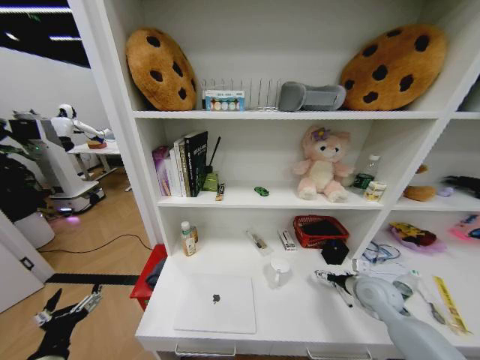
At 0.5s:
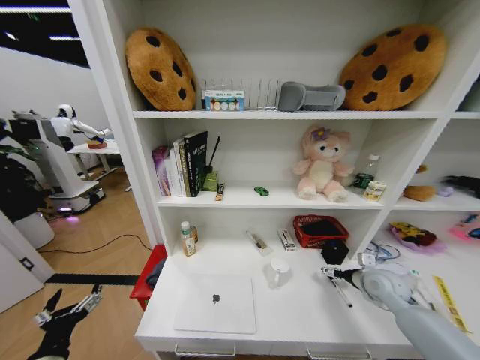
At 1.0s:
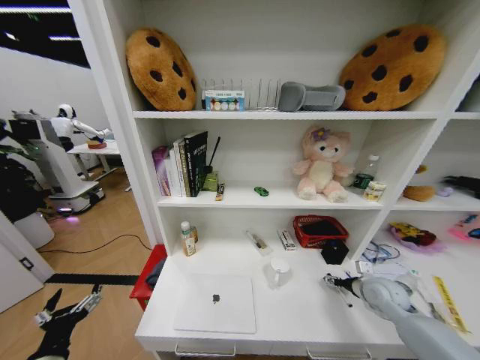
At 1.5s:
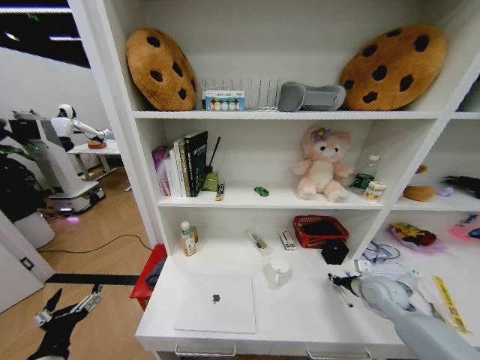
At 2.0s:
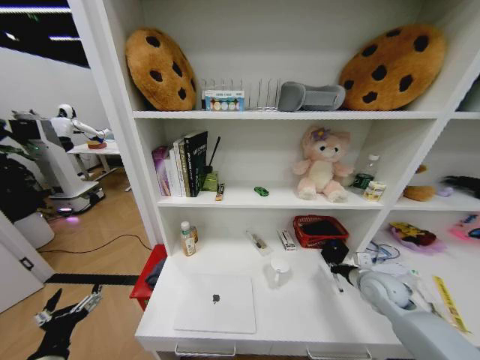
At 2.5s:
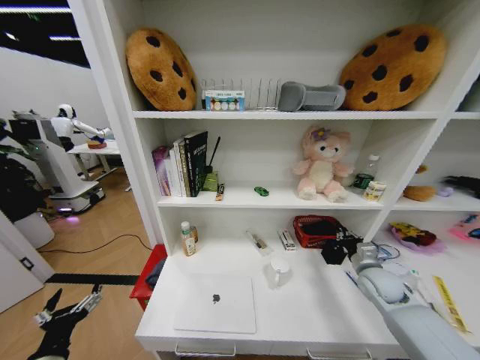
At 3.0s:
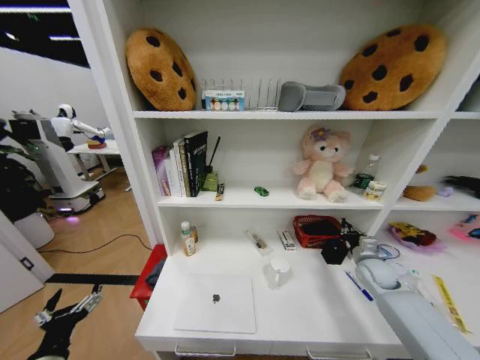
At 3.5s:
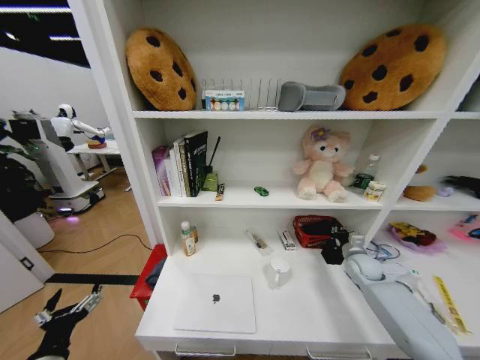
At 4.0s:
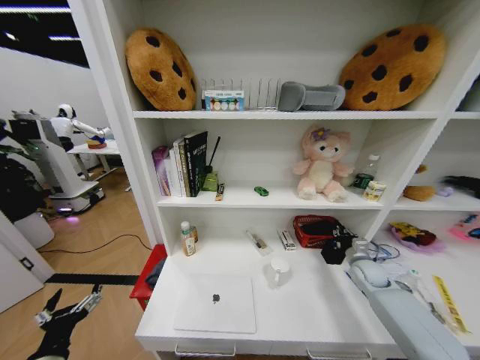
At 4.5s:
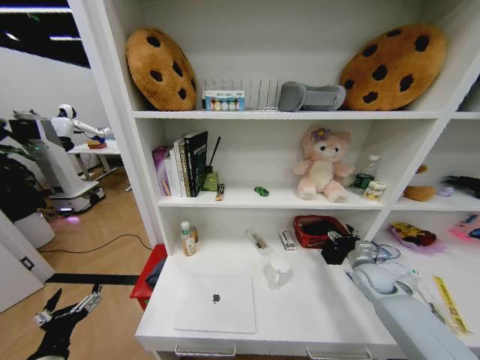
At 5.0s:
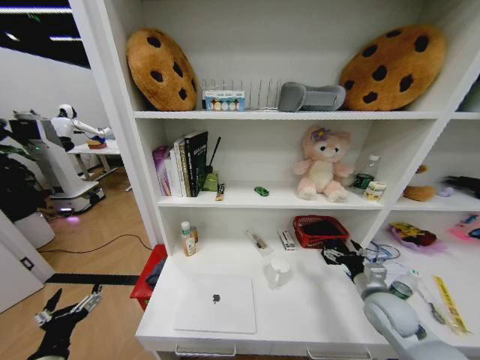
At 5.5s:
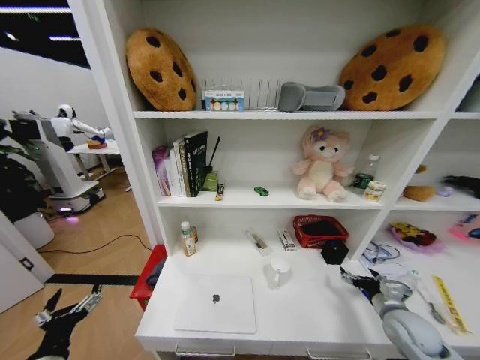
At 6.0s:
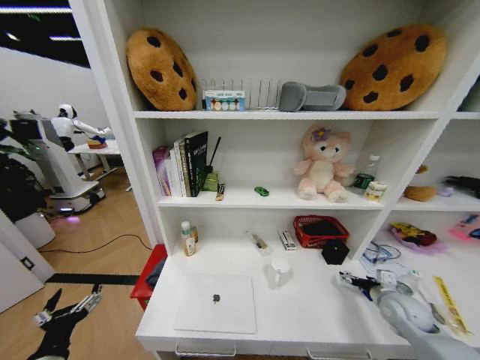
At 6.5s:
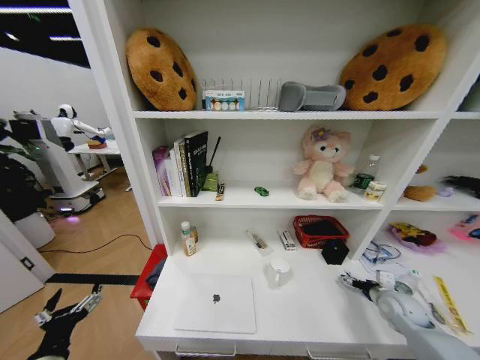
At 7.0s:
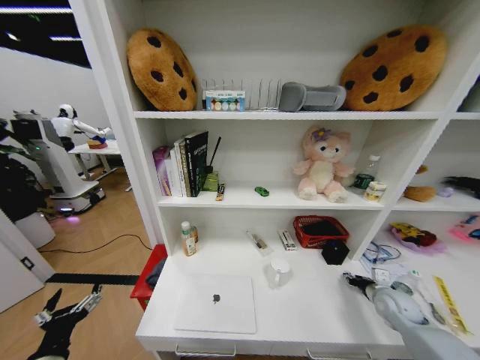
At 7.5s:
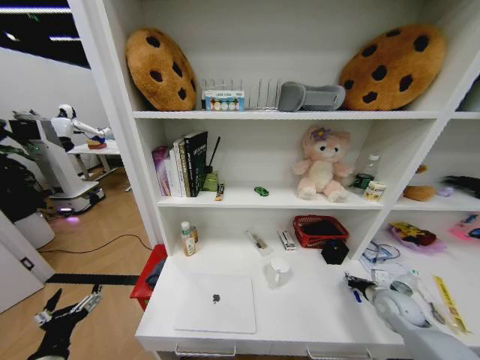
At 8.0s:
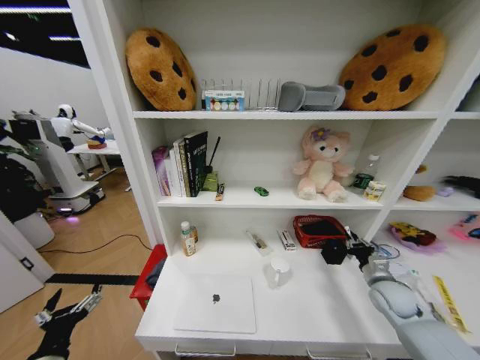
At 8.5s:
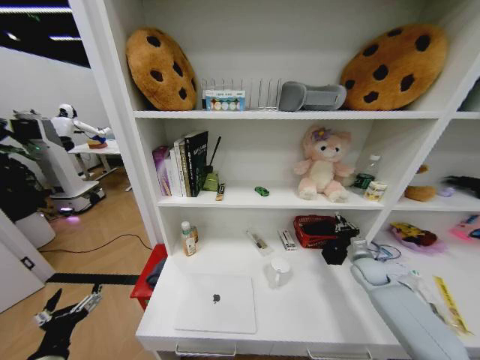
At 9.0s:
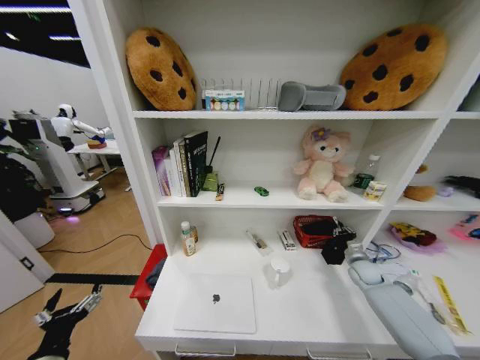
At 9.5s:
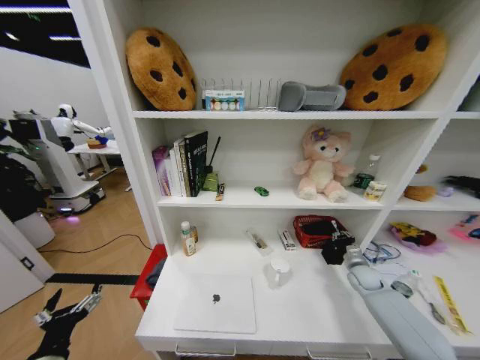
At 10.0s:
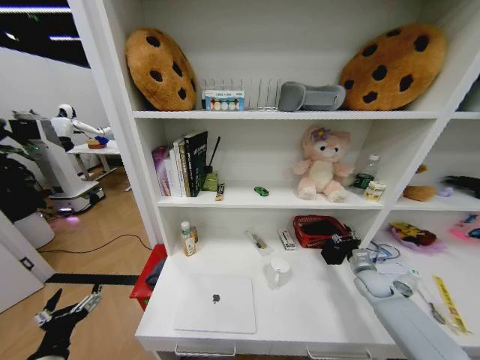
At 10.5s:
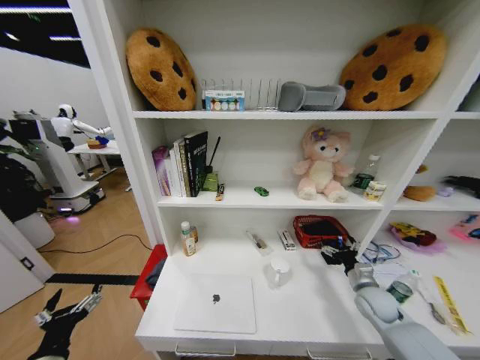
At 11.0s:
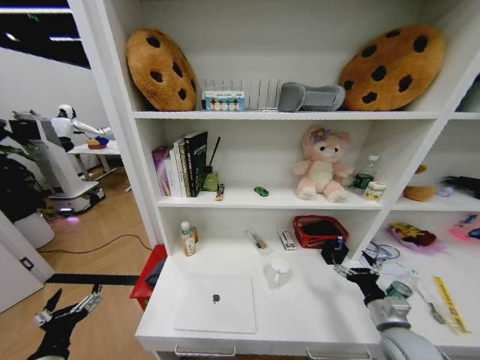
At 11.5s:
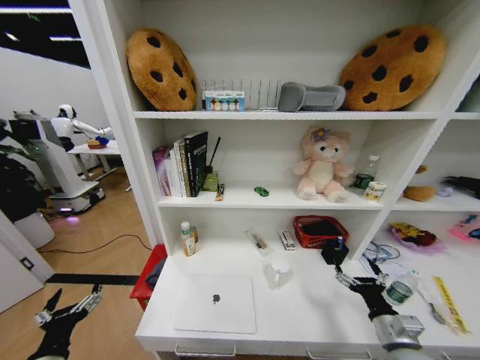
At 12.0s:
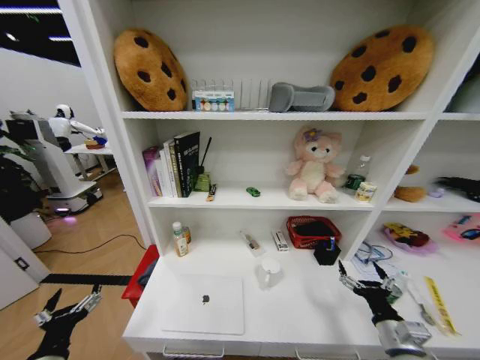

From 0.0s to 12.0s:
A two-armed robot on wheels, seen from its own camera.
Task of the whole recording: Organize the objects on the table.
From 0.0s to 2.0s: The right gripper closes its fingers.
From 2.0s to 4.0s: The right gripper goes some 10 cm forward and downward.
From 4.0s to 6.0s: The right gripper is displaced backward by roughly 10 cm, and opens up.
From 6.0s to 8.0s: The right gripper closes.
From 8.0s to 10.0s: The right gripper moves forward and downward, about 10 cm, and opens up.
From 10.0s to 12.0s: The right gripper shifts approximately 25 cm backward and to the left, and opens its fingers.

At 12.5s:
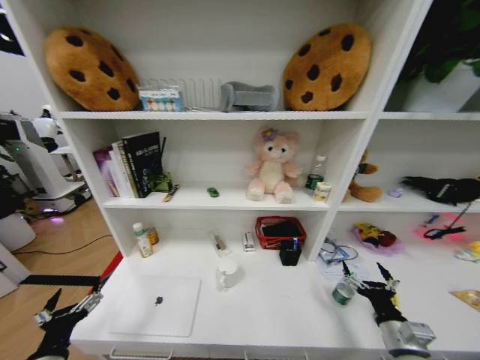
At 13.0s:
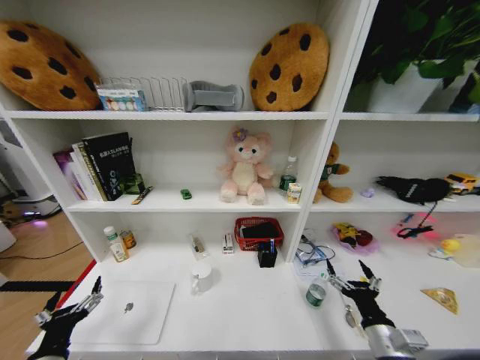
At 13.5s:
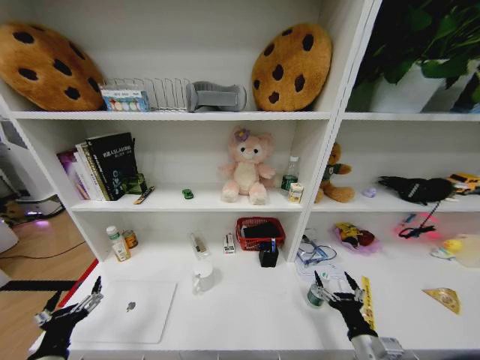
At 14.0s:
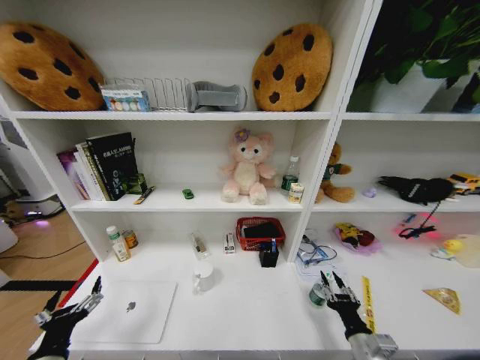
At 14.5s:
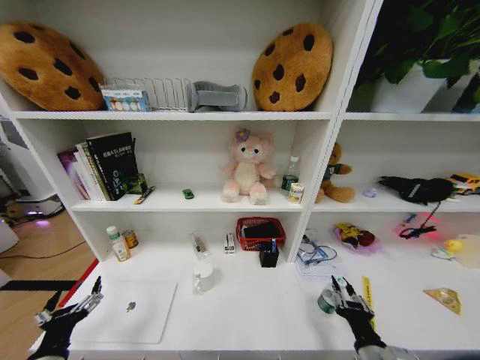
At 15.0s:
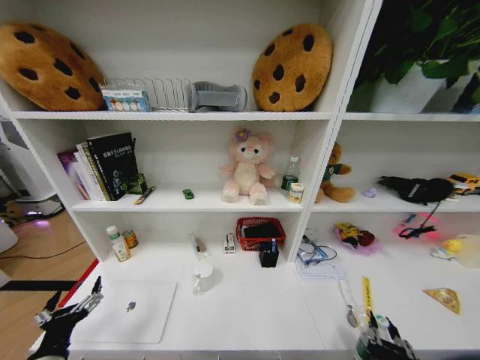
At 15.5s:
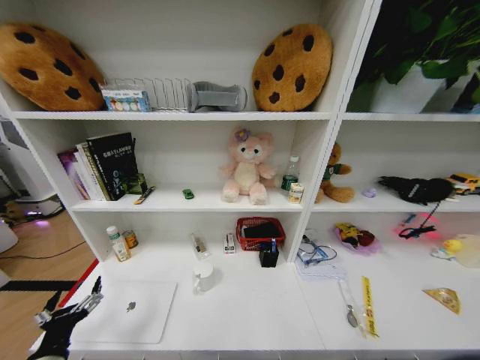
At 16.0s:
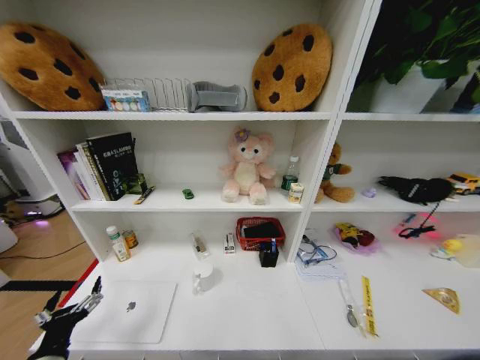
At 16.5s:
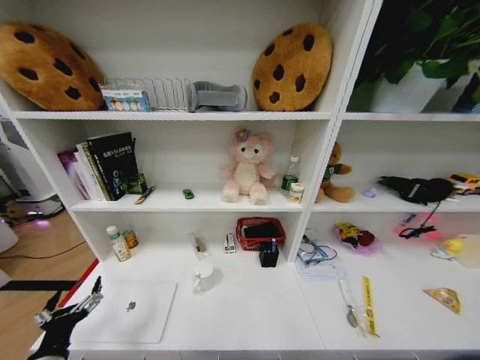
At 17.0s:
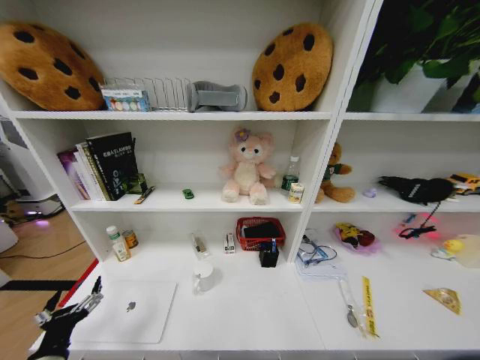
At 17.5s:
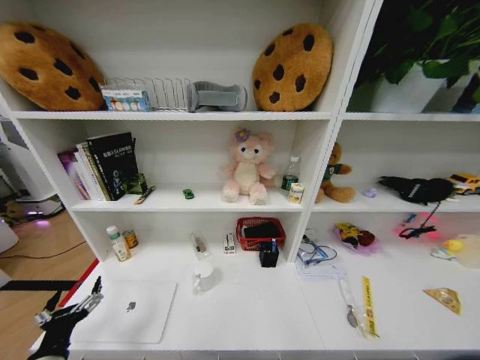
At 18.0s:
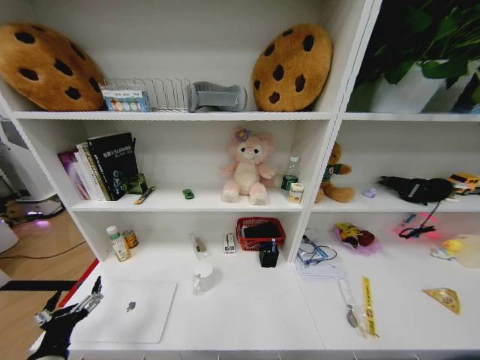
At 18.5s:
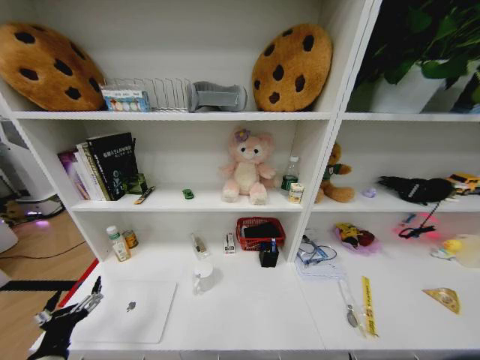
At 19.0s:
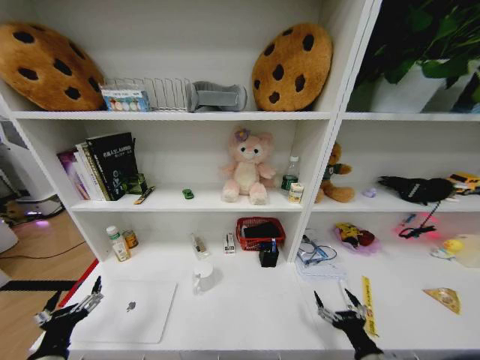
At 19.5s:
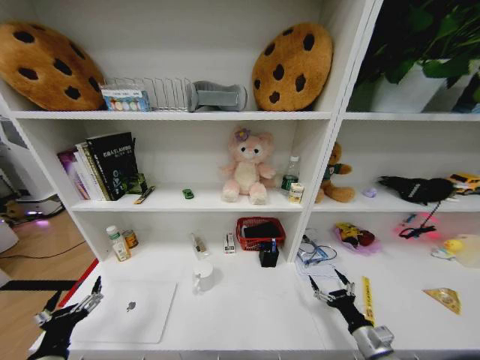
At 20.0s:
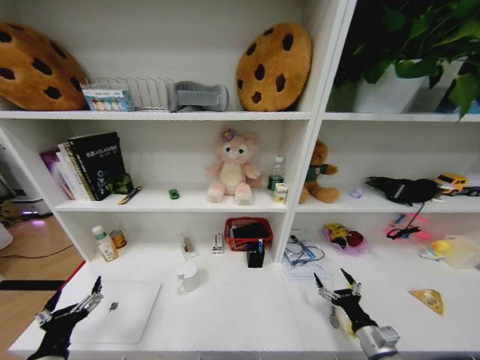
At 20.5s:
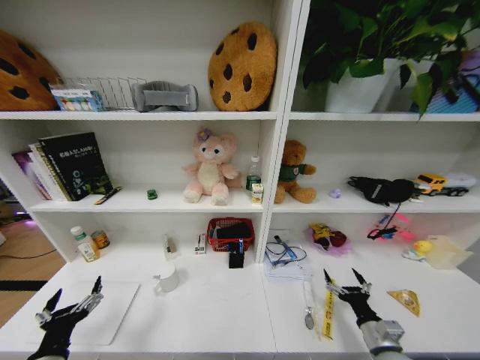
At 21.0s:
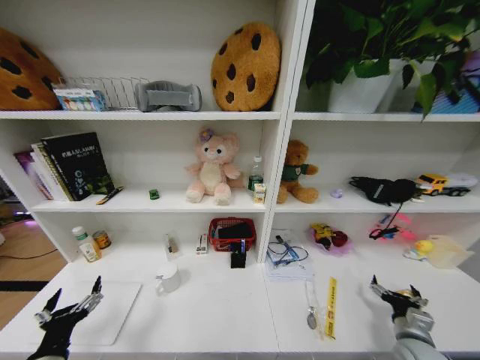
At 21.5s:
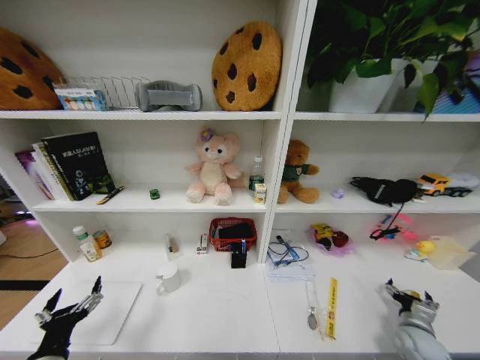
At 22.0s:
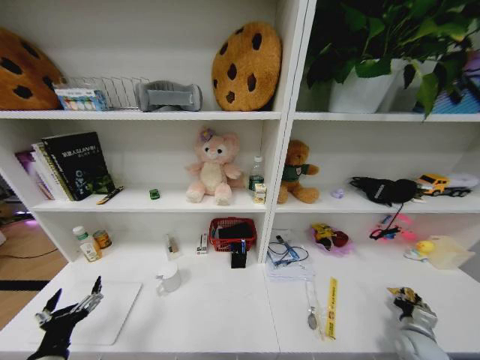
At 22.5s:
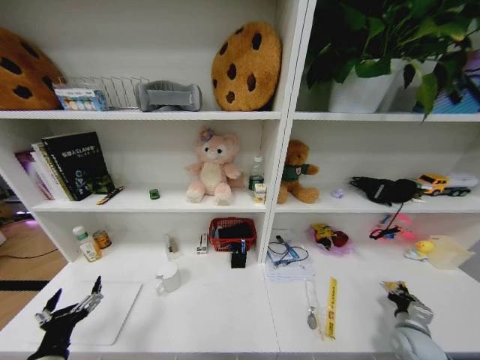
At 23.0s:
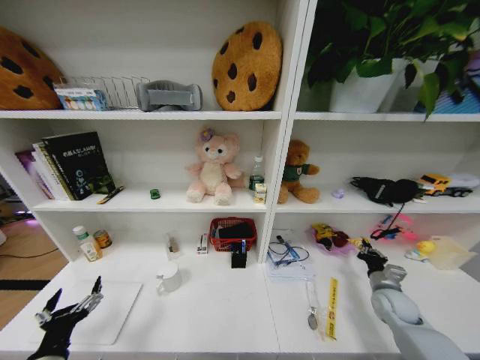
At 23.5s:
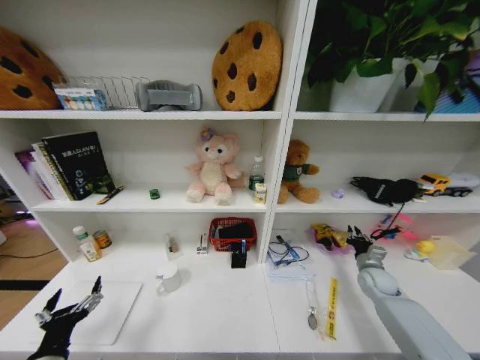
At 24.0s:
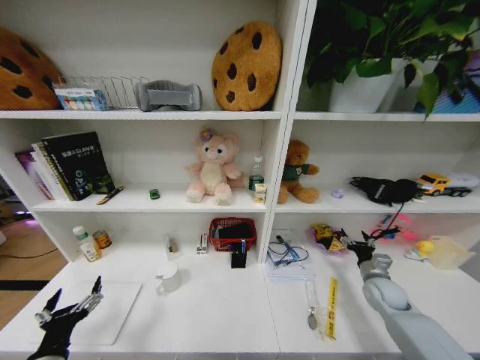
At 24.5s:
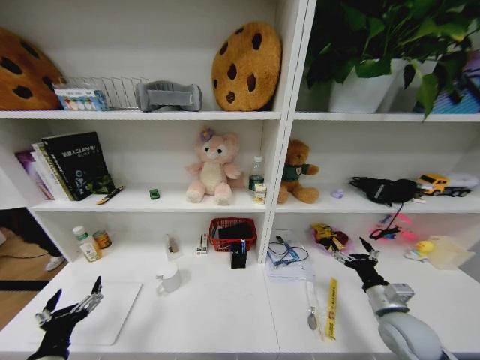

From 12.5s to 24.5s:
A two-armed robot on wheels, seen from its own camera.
Task of the whole recording: Organize the objects on the table.
From 12.5s to 14.5s: The right gripper moves to the left, roughly 10 cm, and closes its fingers.
From 14.5s to 16.5s: The right gripper shifts roughly 30 cm downward and backward.
From 18.5s to 20.5s: The right gripper is displaced forward and to the right by roughly 20 cm.
From 20.5s to 22.5s: The right gripper goes some 15 cm to the right and forward, and closes its fingers.
From 22.5s to 24.5s: The right gripper moves upward and to the left, about 15 cm, goes forward and returns, roughly 15 cm each way, and opens up.

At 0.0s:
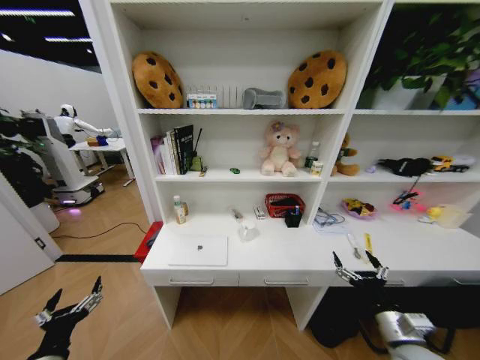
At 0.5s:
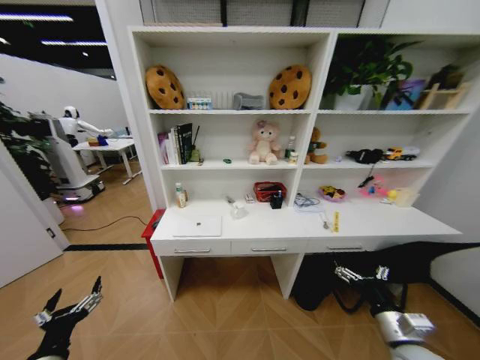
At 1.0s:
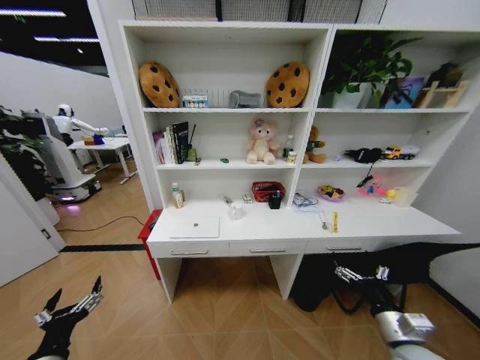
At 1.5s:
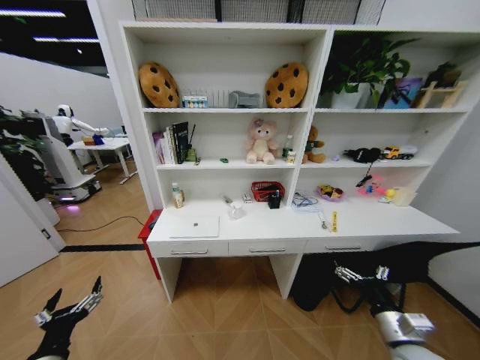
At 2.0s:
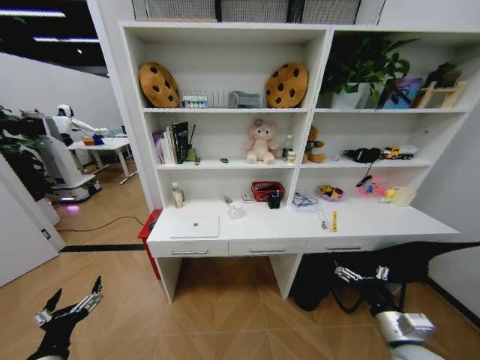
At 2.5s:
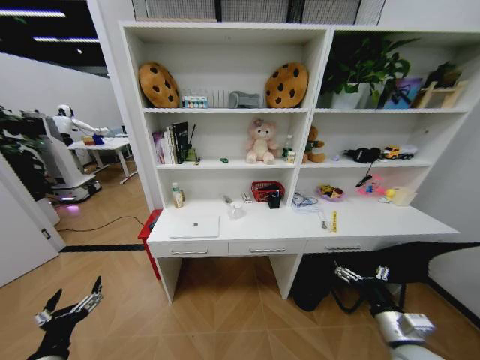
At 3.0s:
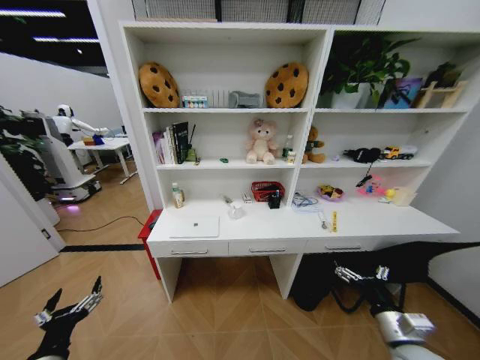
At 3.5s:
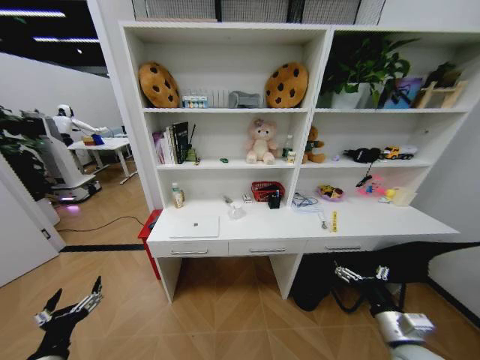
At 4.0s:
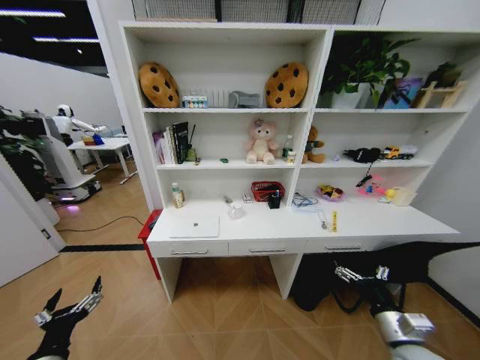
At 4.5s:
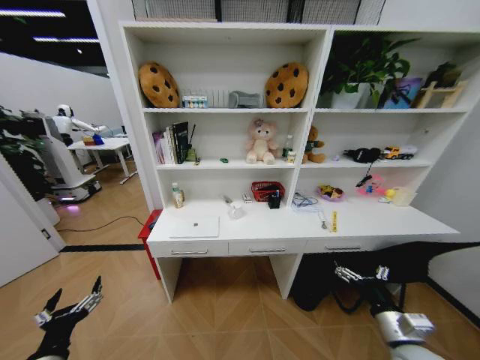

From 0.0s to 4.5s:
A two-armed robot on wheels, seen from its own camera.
Task of the whole recording: Organize the objects on the table.
From 2.0s to 4.5s: Neither gripper changes place.
